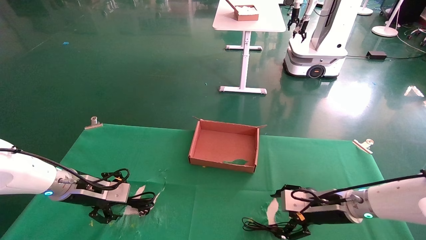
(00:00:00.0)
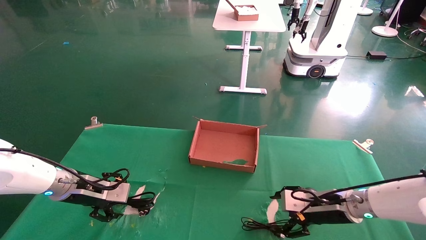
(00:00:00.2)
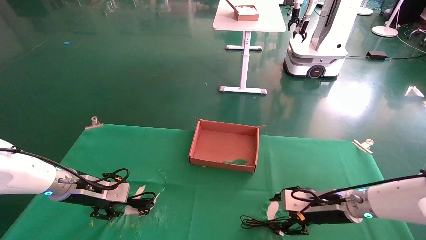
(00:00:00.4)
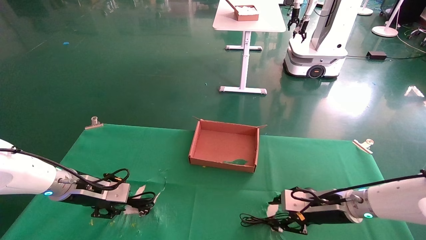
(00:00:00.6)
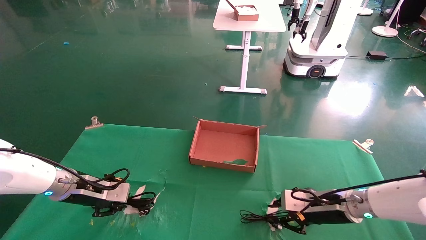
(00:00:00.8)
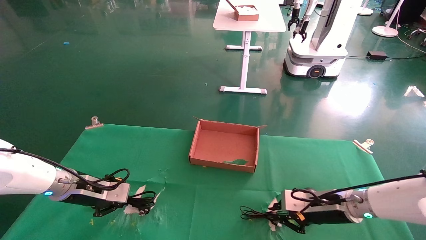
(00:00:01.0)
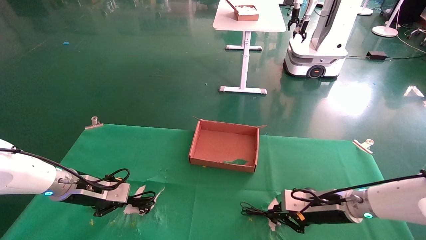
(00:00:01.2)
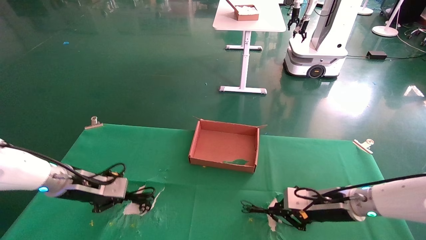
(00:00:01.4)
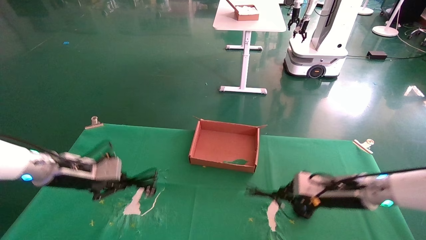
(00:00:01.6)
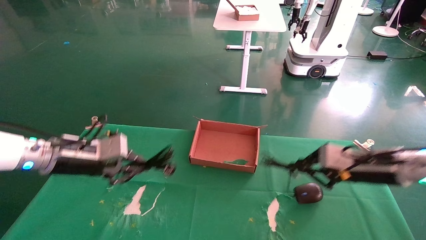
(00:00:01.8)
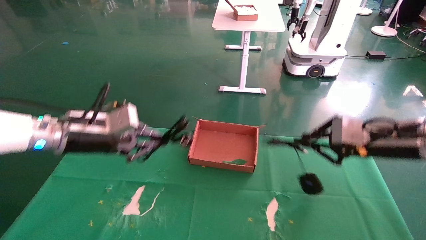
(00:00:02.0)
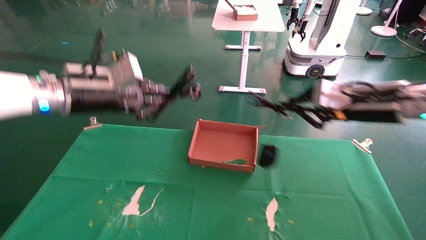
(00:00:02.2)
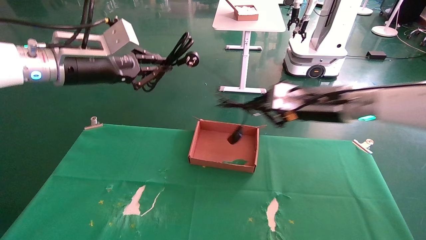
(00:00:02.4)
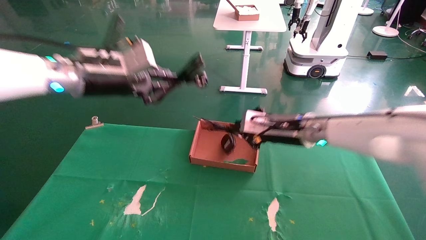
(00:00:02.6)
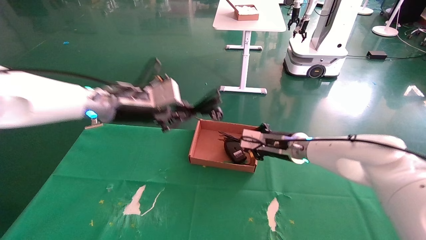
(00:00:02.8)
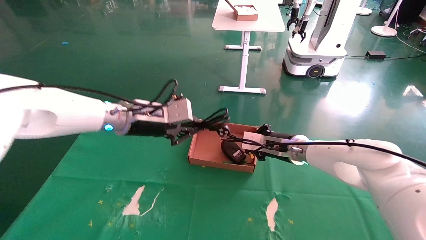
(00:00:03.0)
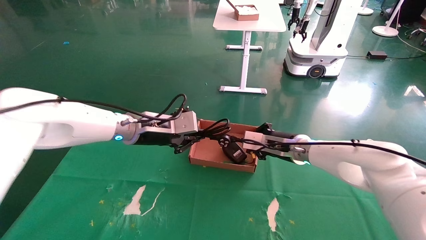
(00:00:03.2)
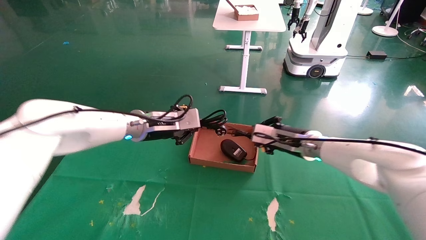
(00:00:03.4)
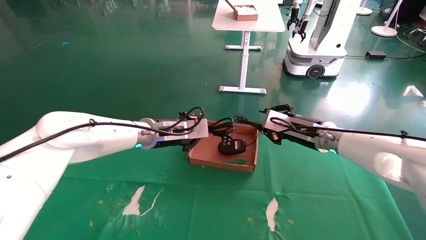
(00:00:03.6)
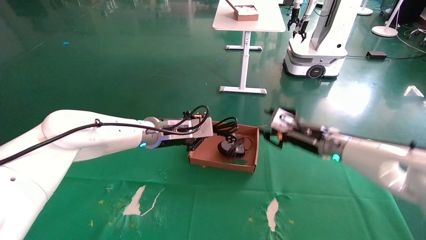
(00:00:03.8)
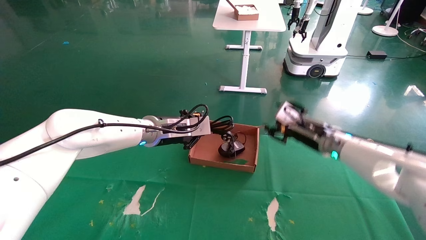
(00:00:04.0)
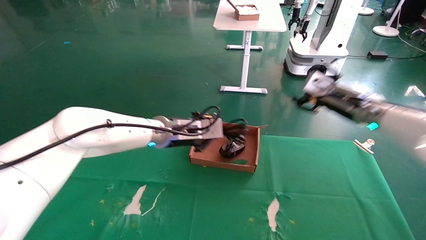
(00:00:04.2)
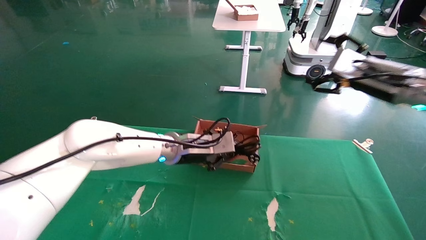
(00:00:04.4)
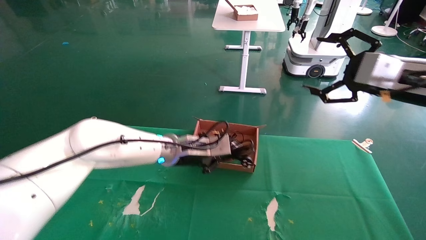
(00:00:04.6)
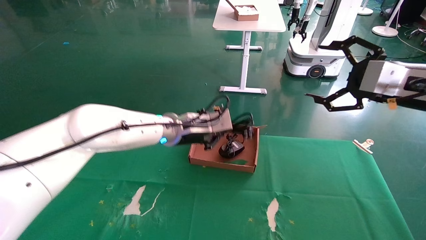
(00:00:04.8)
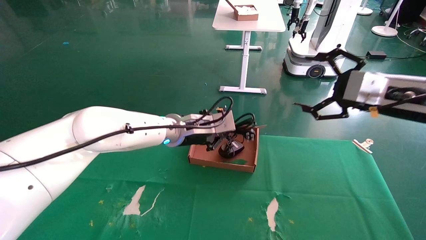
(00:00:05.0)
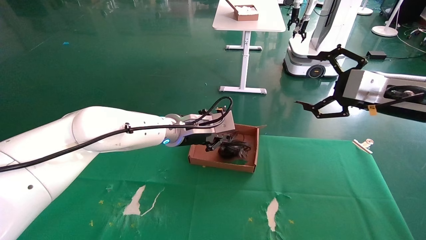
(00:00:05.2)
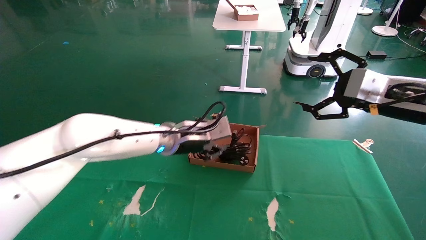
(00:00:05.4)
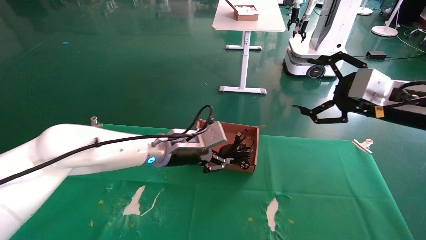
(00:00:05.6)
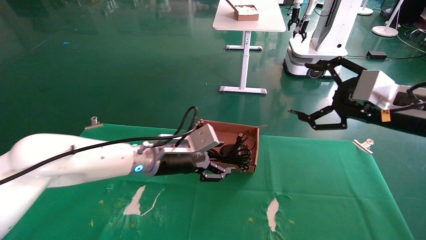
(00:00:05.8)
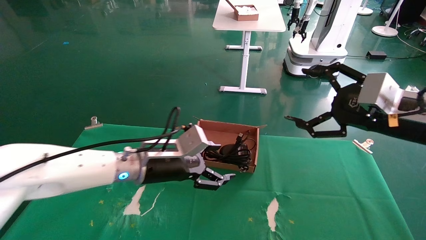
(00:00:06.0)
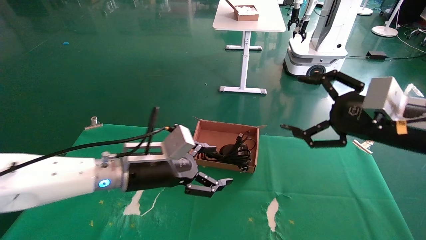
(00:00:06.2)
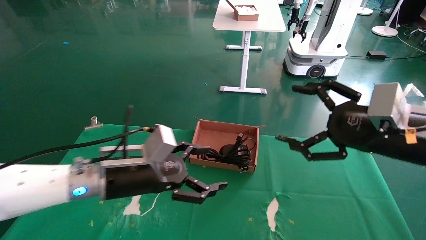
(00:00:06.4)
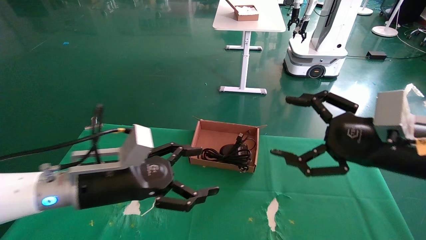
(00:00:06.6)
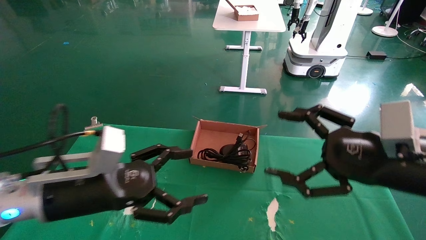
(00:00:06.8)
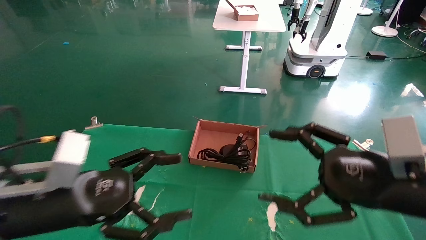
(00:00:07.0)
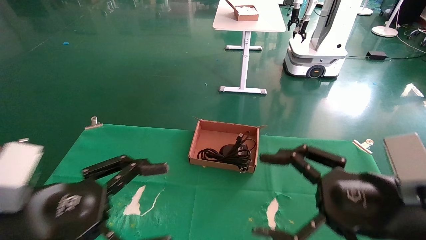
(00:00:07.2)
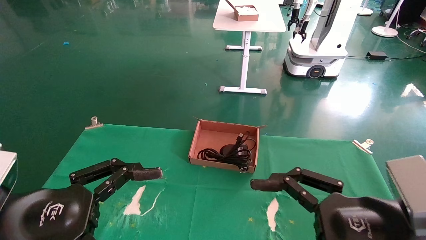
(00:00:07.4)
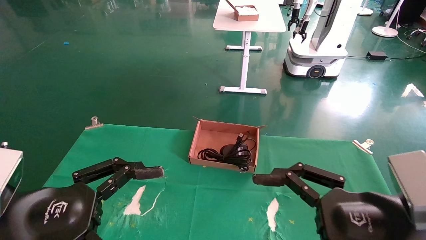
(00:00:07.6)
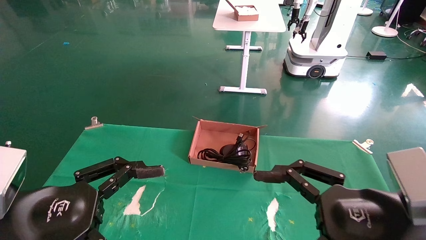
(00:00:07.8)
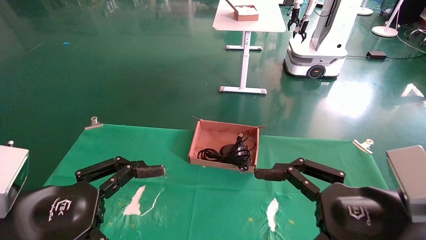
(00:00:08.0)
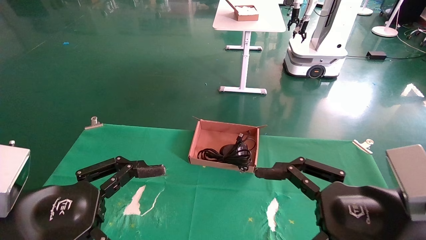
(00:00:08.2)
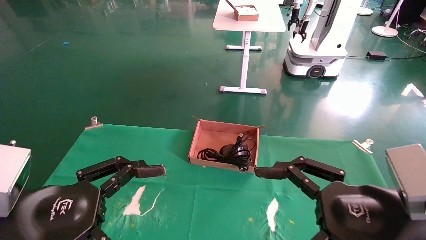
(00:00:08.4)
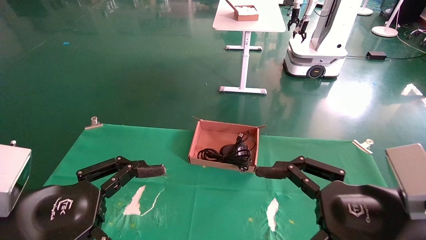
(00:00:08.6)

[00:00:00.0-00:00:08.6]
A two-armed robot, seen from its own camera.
Step, 00:00:01.2 to 00:00:05.6: Place the mouse and power cord into the box.
00:00:00.0 to 00:00:01.4: The right gripper closes up. The left gripper closes.
00:00:01.4 to 00:00:02.8: The left gripper heads upward and to the right, covering about 20 cm. Meanwhile the right gripper moves to the left, upward and forward, about 15 cm.
00:00:02.8 to 00:00:04.4: The right gripper moves to the right, upward and backward, about 20 cm, and opens up, while the left gripper heads to the right and downward, covering approximately 15 cm.
00:00:04.4 to 00:00:05.8: The left gripper ends up about 5 cm from where it was, and opens up. Meanwhile the right gripper goes some 10 cm backward.
00:00:05.8 to 00:00:07.2: The right gripper moves backward, downward and to the left, approximately 15 cm; the left gripper heads backward and to the left, covering approximately 25 cm, and opens its fingers.
00:00:07.2 to 00:00:08.6: The grippers stay close to where they were, moving slightly.
